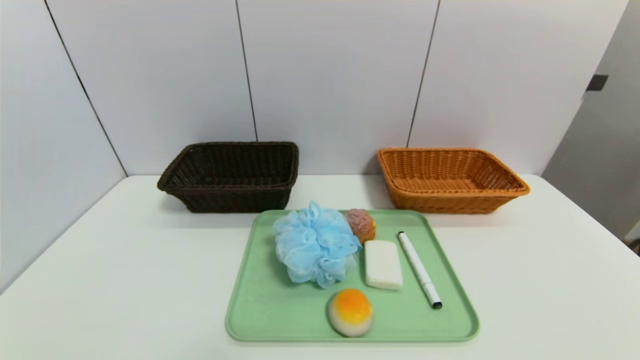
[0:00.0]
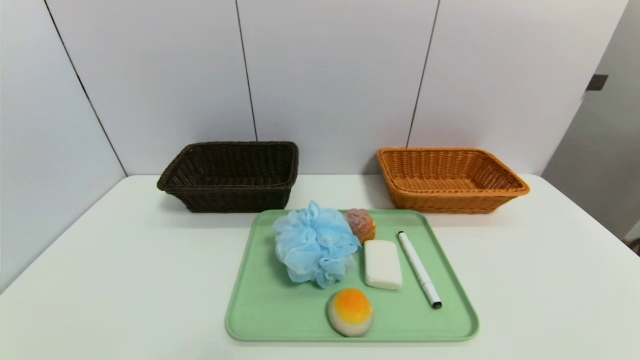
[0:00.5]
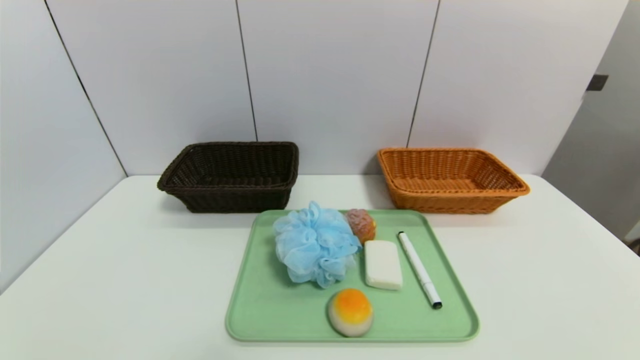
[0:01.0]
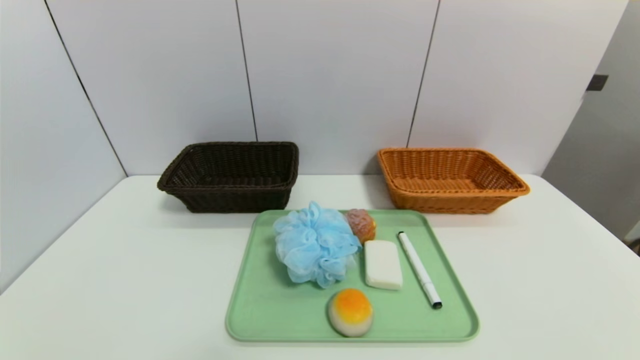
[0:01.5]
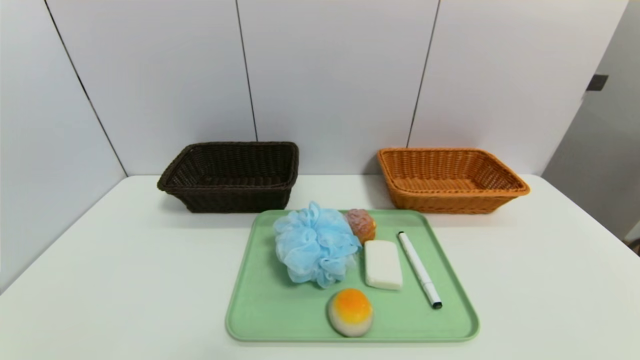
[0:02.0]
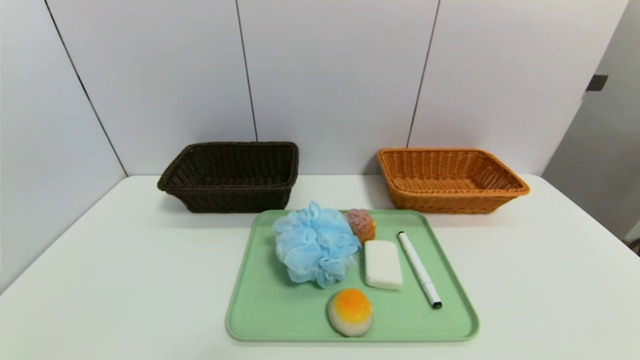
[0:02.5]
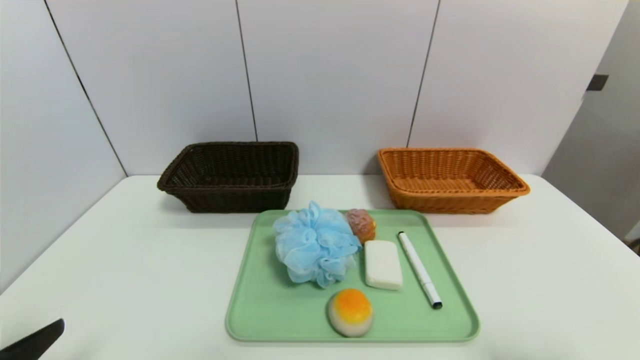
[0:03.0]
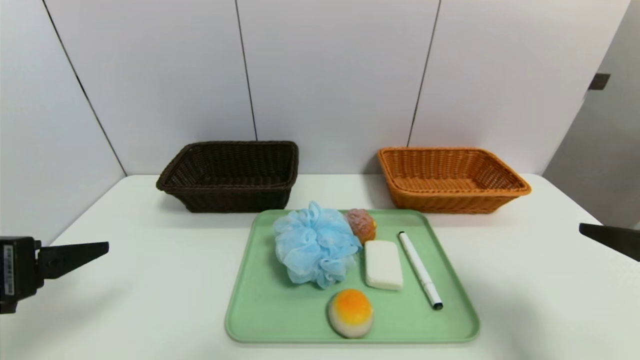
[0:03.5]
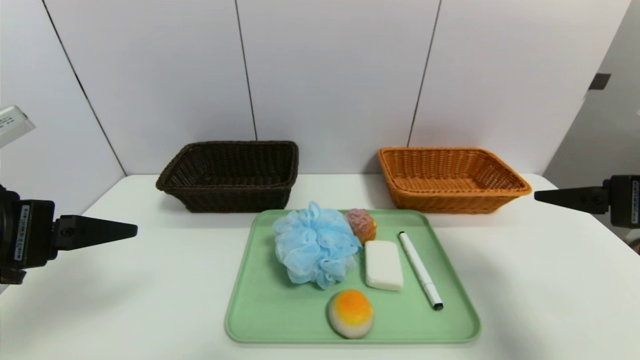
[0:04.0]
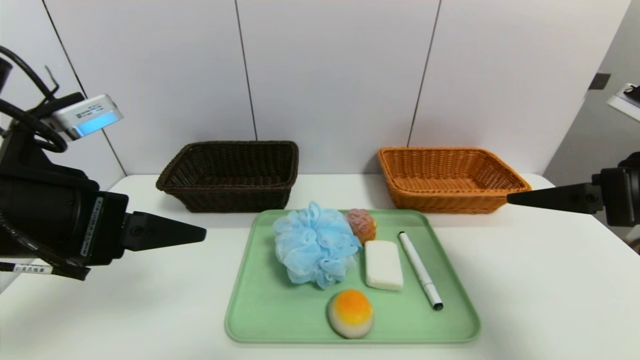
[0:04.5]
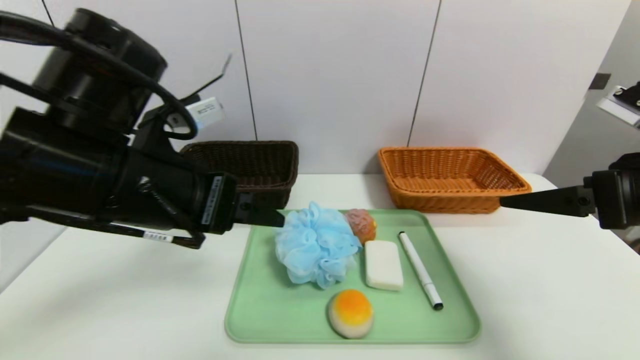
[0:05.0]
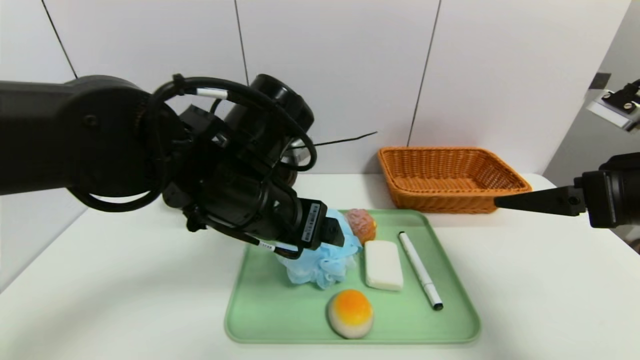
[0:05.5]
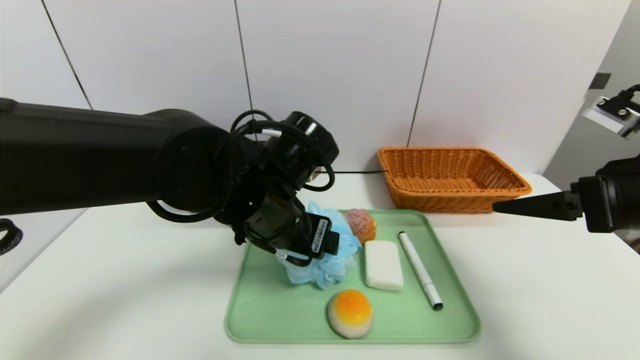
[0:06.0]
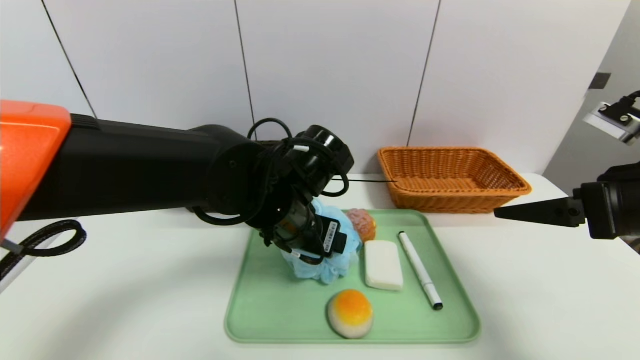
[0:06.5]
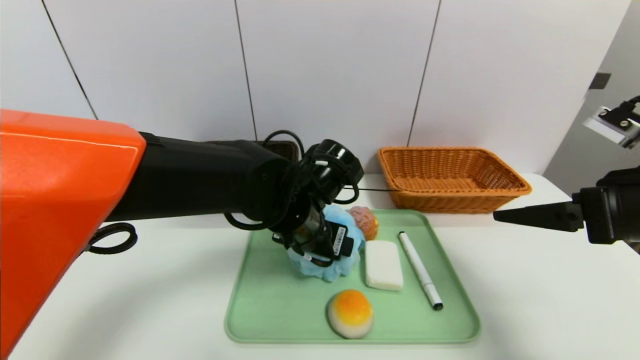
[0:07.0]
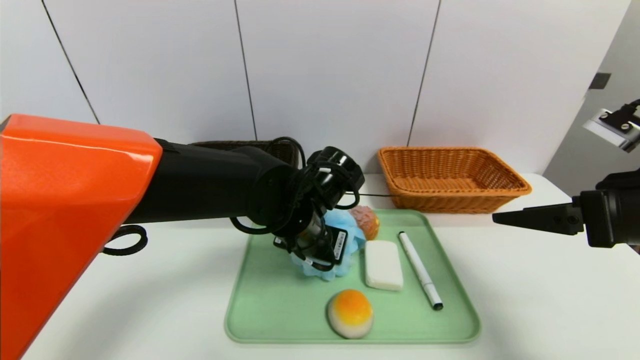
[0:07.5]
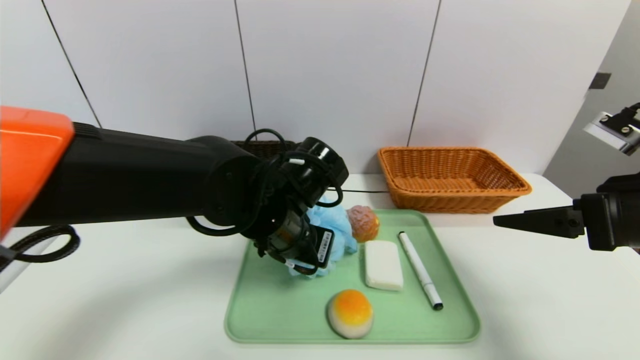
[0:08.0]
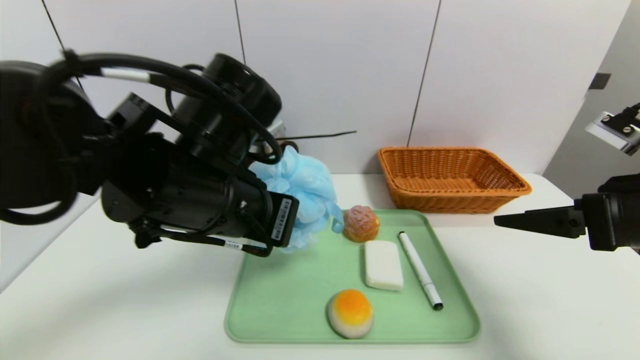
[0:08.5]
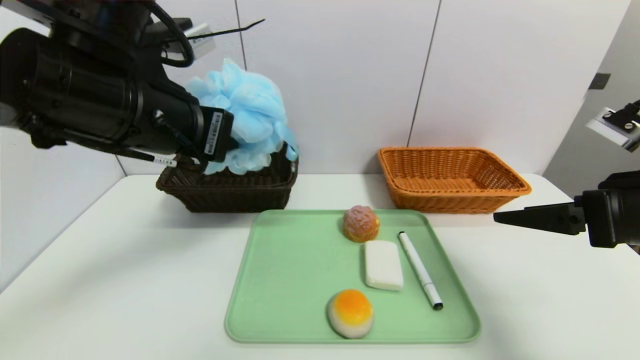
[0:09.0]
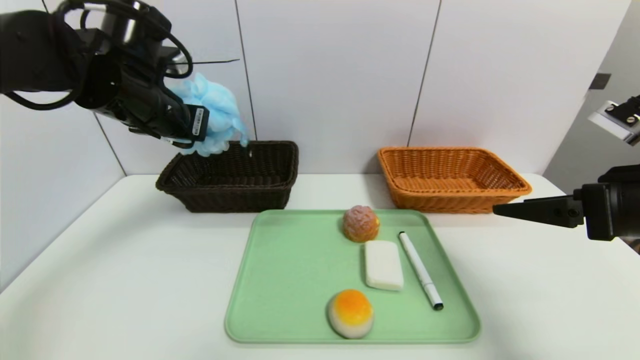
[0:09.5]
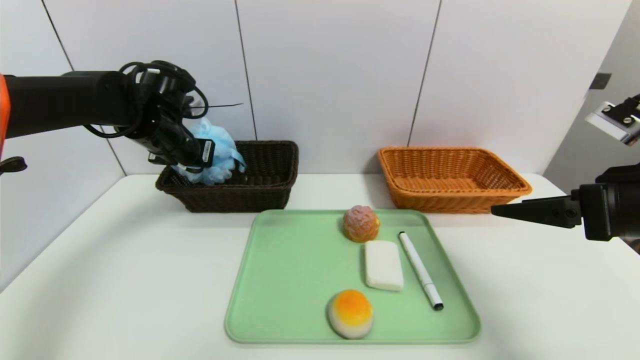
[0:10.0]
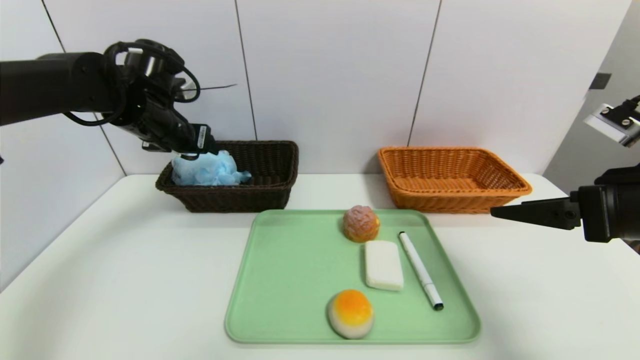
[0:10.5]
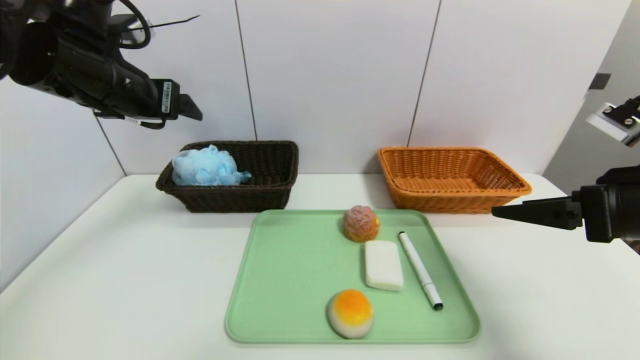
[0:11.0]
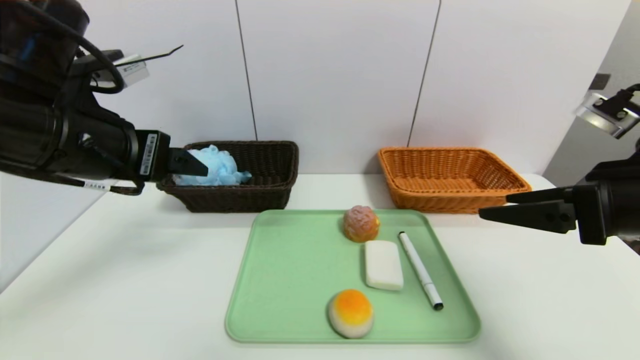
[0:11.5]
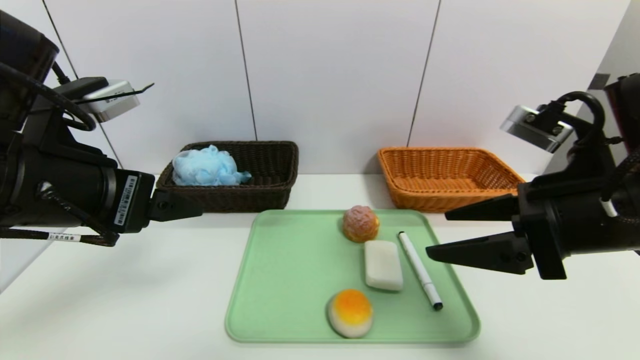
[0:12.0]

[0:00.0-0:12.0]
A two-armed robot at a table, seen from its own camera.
Task of the whole recording: place the food in the right basket with the right gripper, and place the non food items in the left basket with the left gripper.
Step, 0:00.0 to 0:10.5: Grasp the bath ball and put it in the left basket.
0:02.0 to 0:04.0: The right gripper travels forward and upward by some 25 cm, while the left gripper heads upward and forward, covering some 25 cm.
0:04.0 to 0:06.0: The left gripper goes about 25 cm to the right and forward.
0:06.0 to 0:08.0: The left gripper closes its fingers.
0:08.0 to 0:10.0: The left gripper heads to the left and forward, covering some 25 cm.
0:10.0 to 0:12.0: The right gripper is displaced to the left by roughly 10 cm. Meanwhile the left gripper is displaced backward by roughly 25 cm, and opens its fingers.

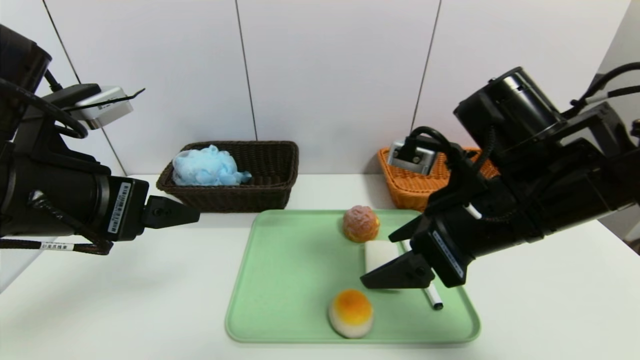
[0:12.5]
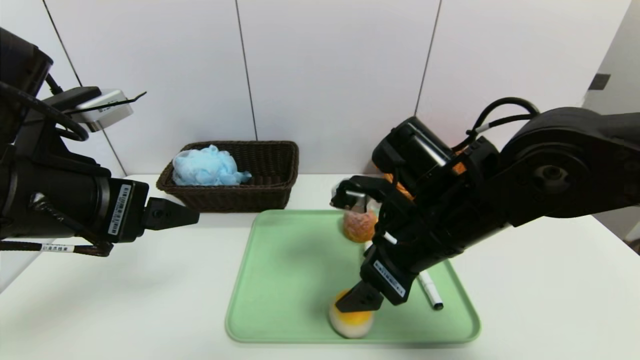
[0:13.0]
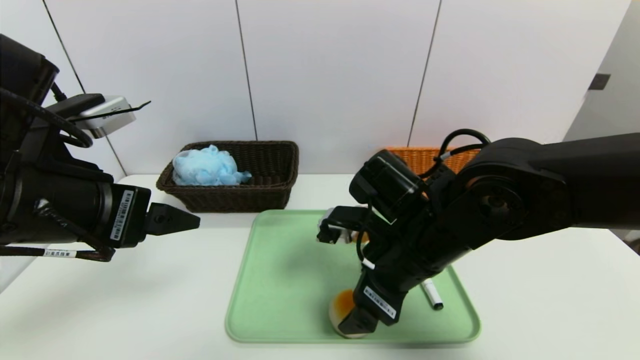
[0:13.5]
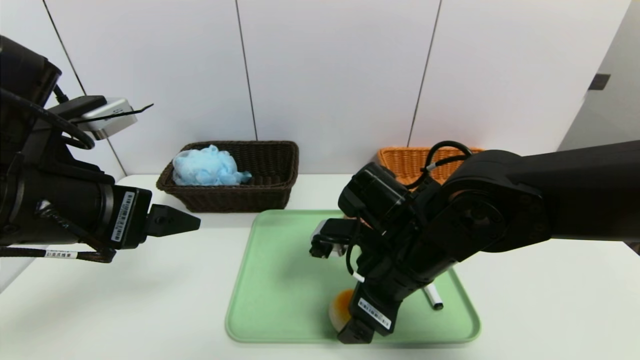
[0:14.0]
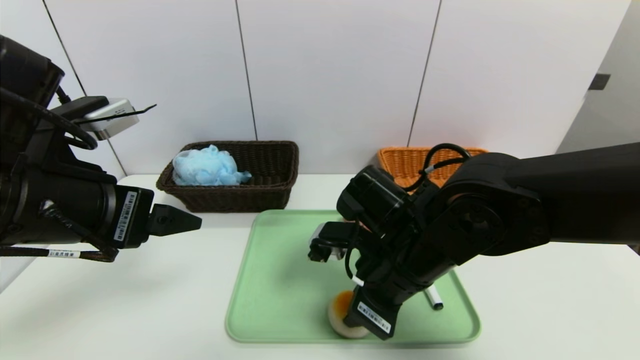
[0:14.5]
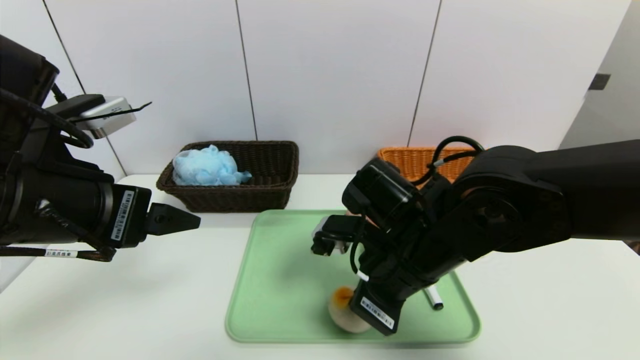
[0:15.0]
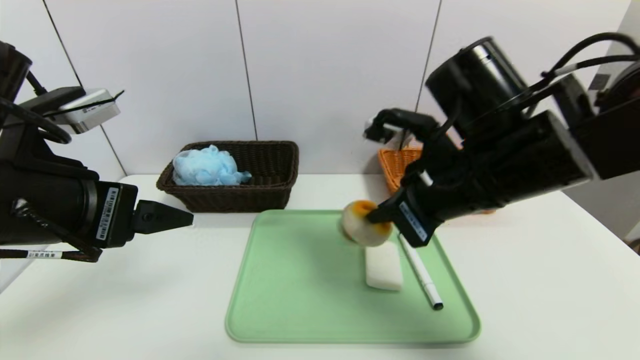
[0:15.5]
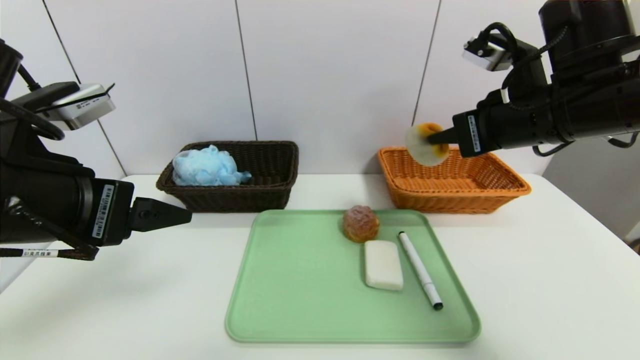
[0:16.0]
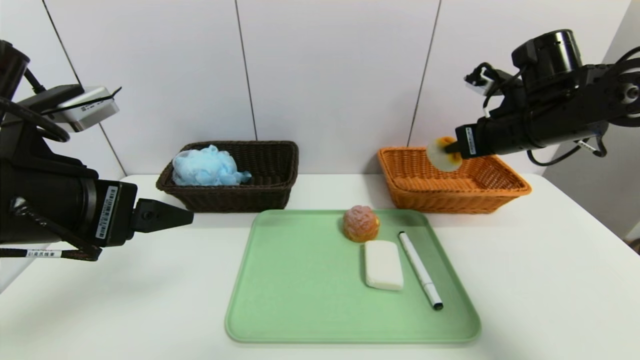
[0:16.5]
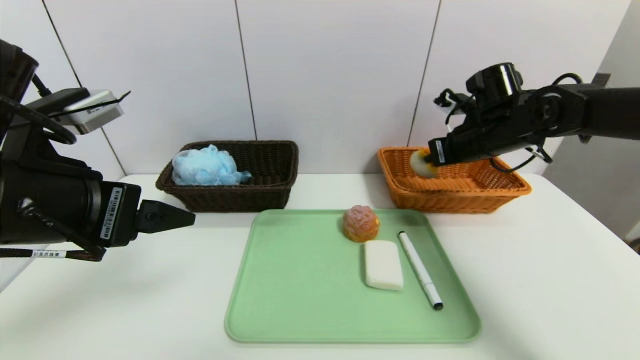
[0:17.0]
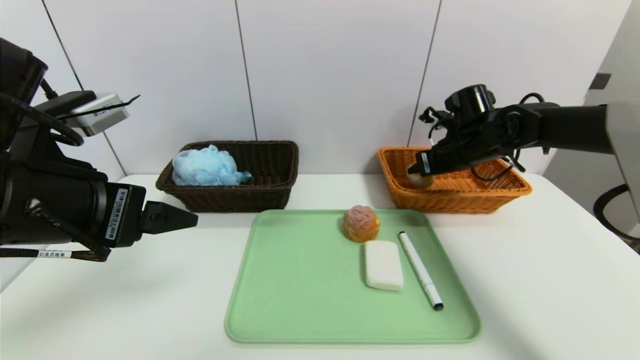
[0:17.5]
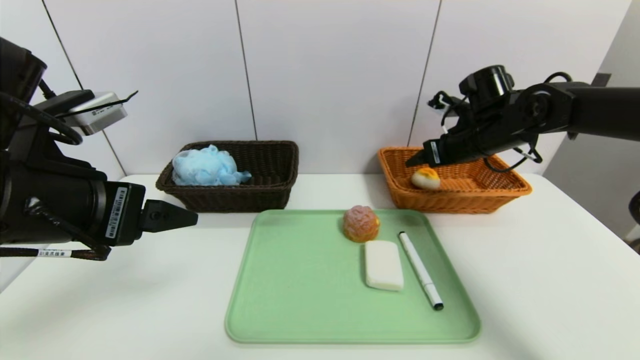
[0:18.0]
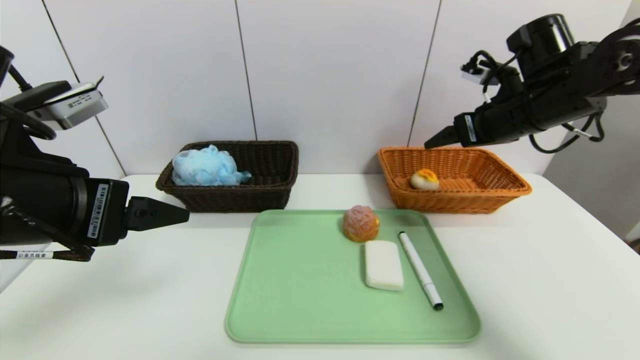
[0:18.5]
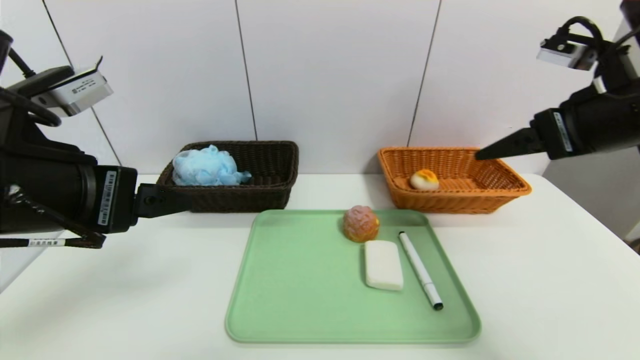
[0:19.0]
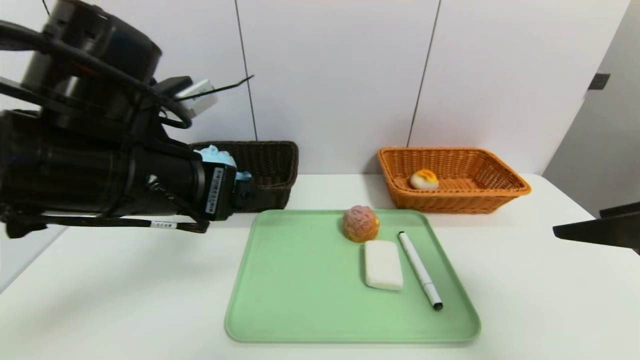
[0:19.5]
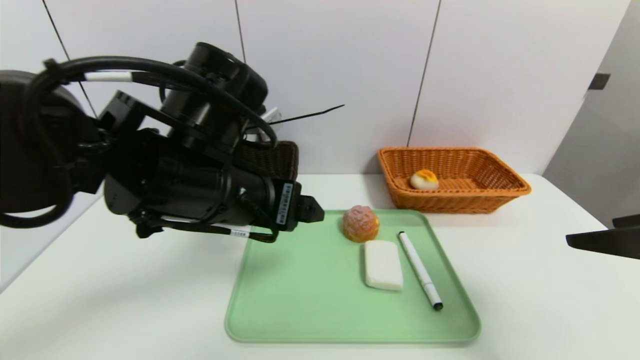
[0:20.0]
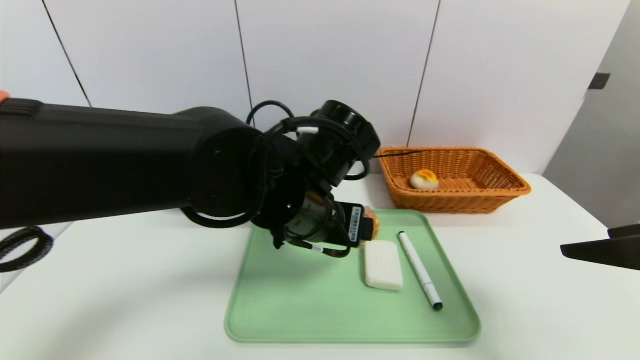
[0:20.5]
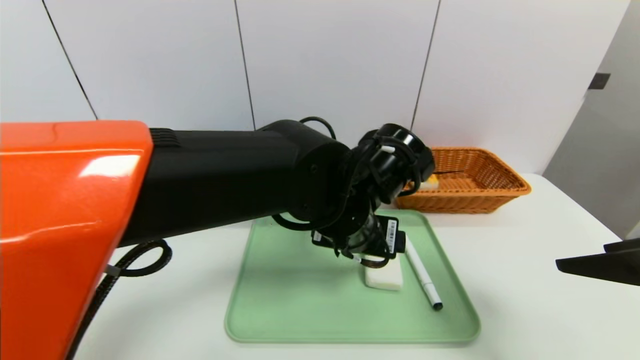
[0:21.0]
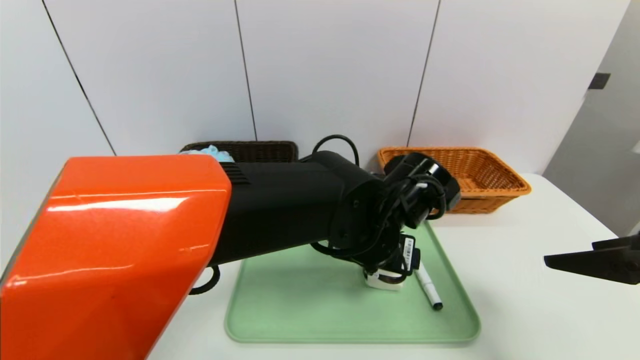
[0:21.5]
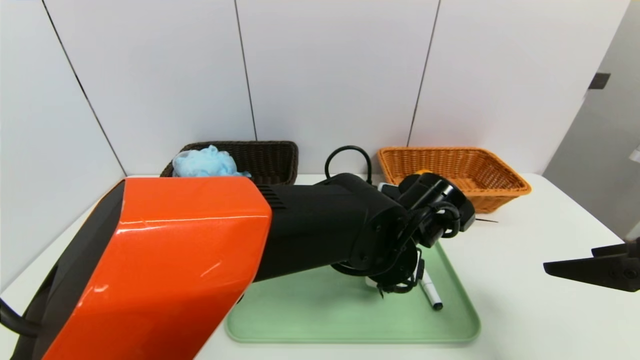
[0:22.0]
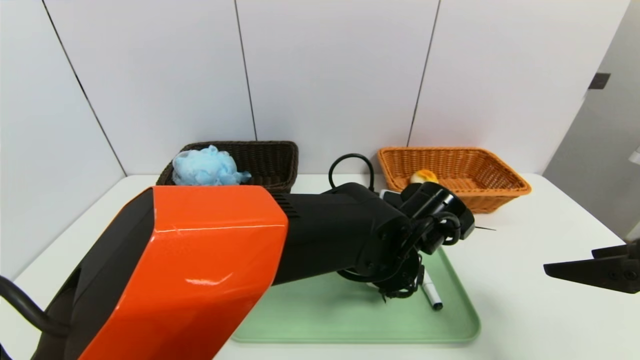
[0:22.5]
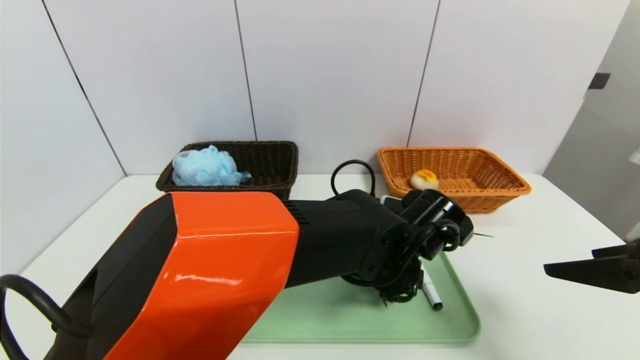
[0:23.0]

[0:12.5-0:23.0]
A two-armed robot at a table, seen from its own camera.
Task of the whole recording: place the food in the right basket with the right gripper, and place the non food items in the left basket with the left gripper.
Step, 0:12.5 to 0:18.0: Grasp the egg yolk pastry and put it in the right basket.
0:12.5 to 0:14.5: The right gripper moves downward and to the left, some 10 cm, and closes.
0:14.5 to 0:16.5: The right gripper shifts some 25 cm to the right, forward and upward.
0:16.5 to 0:19.0: The right gripper goes approximately 15 cm backward and upward, and opens its fingers.
0:19.0 to 0:21.0: The left gripper moves to the right, some 25 cm. The right gripper heads backward, covering approximately 10 cm.
0:21.0 to 0:23.0: The left gripper travels downward and to the right by roughly 10 cm.
